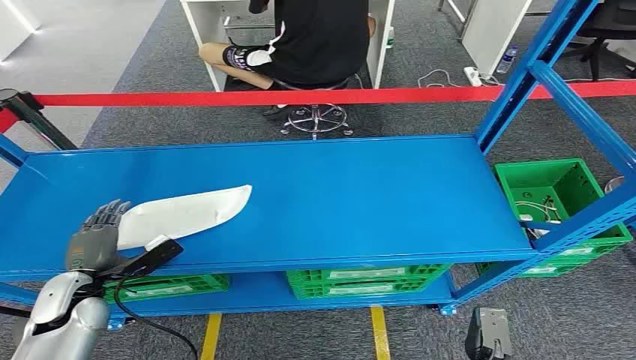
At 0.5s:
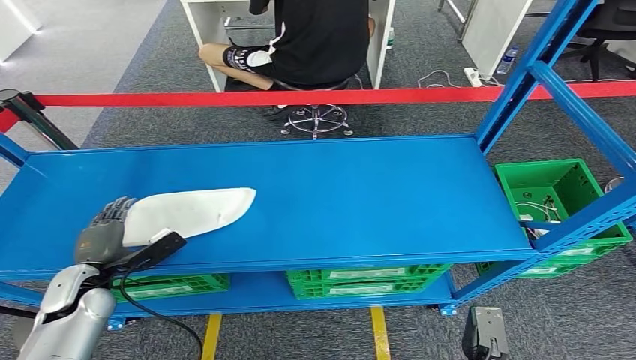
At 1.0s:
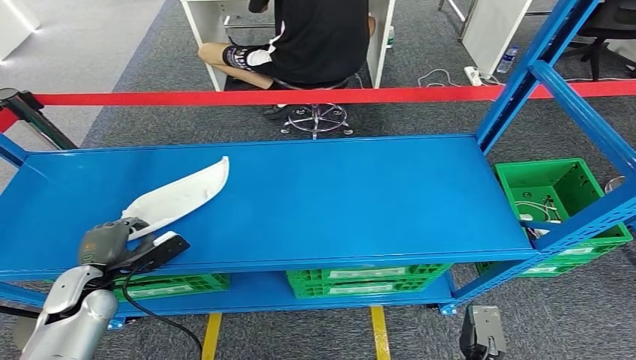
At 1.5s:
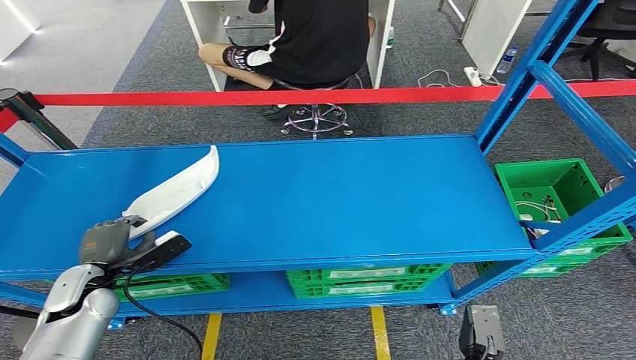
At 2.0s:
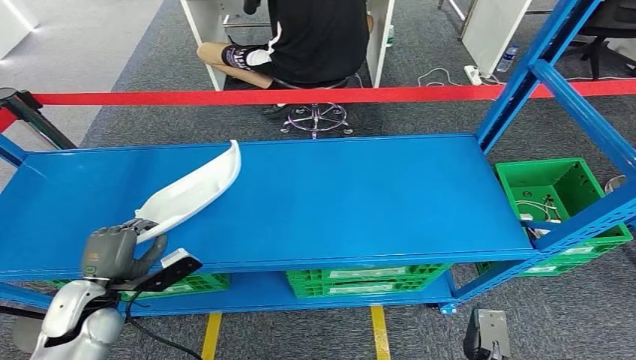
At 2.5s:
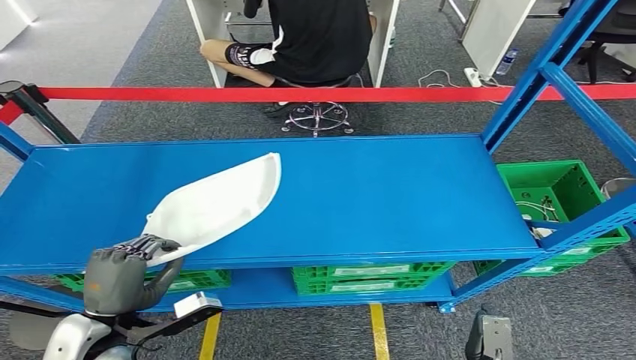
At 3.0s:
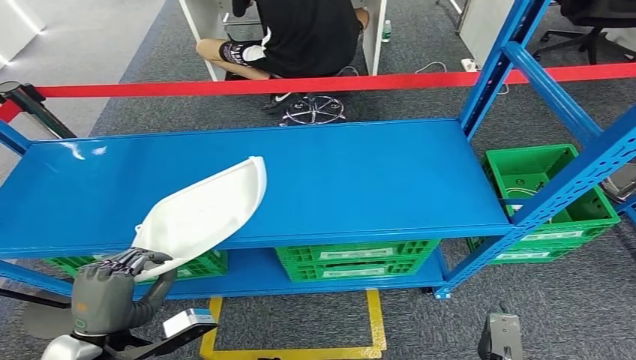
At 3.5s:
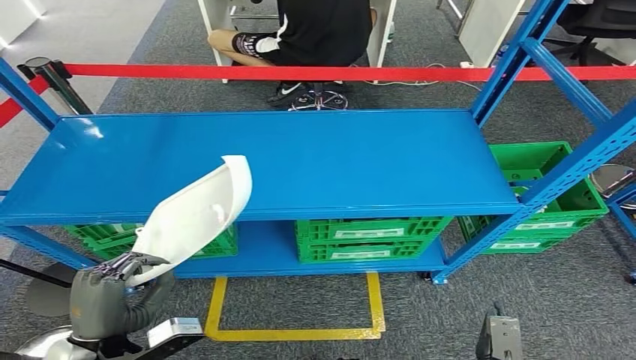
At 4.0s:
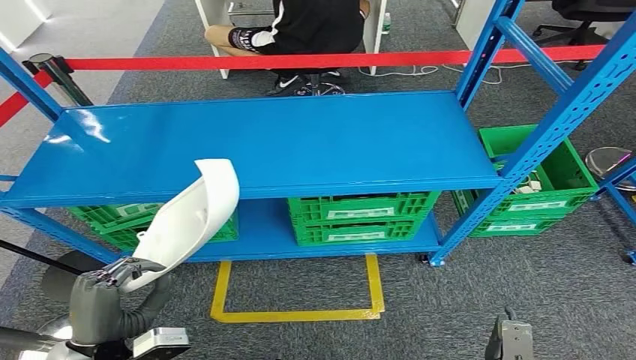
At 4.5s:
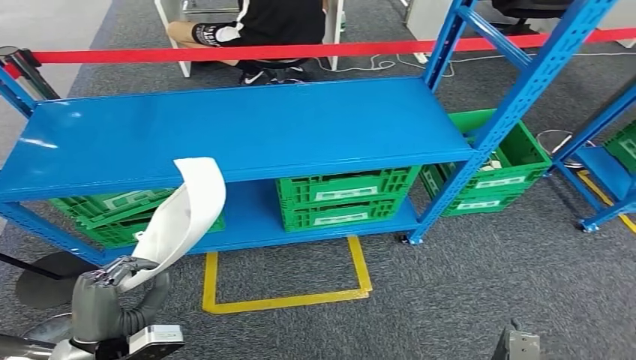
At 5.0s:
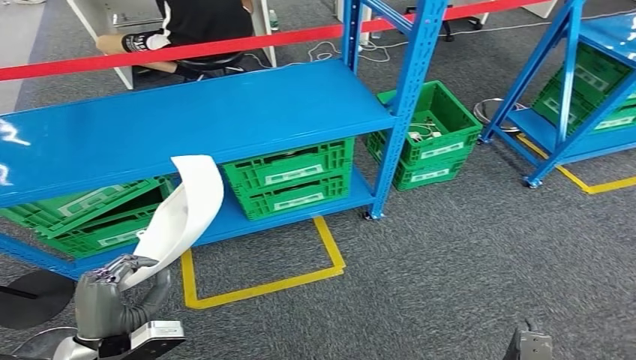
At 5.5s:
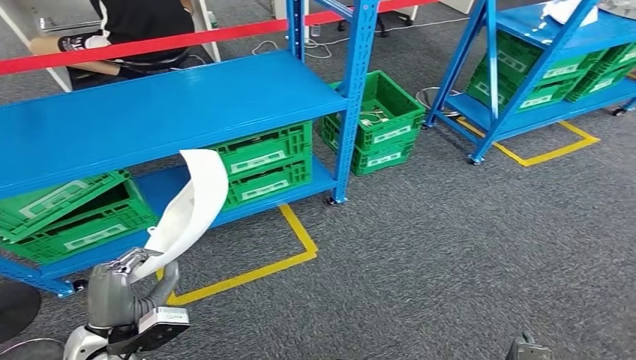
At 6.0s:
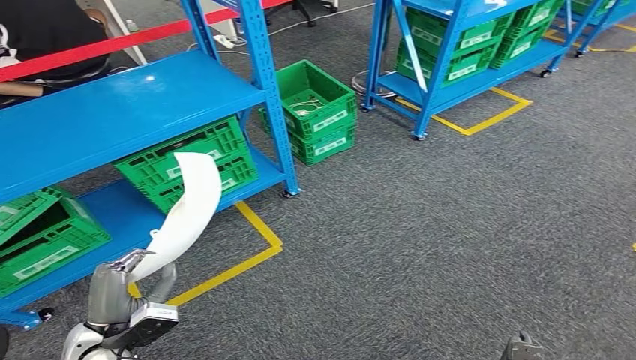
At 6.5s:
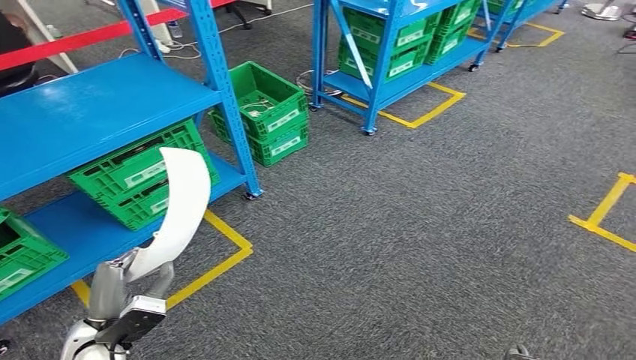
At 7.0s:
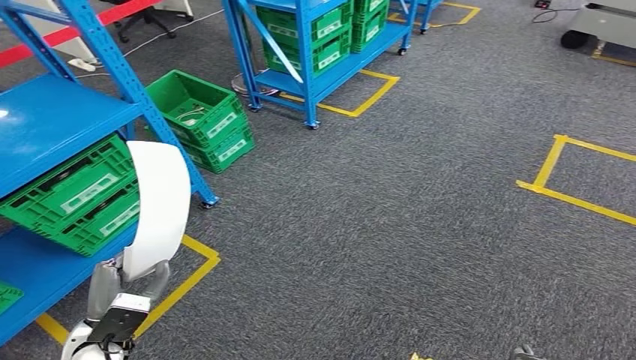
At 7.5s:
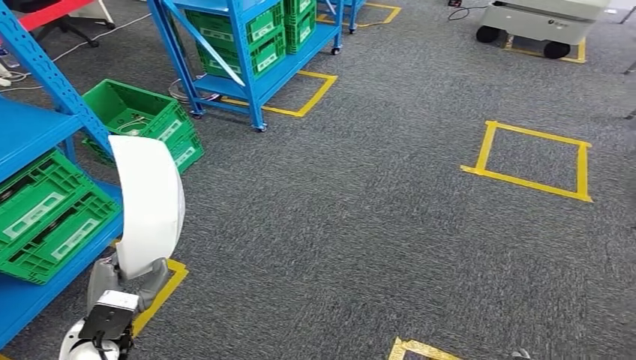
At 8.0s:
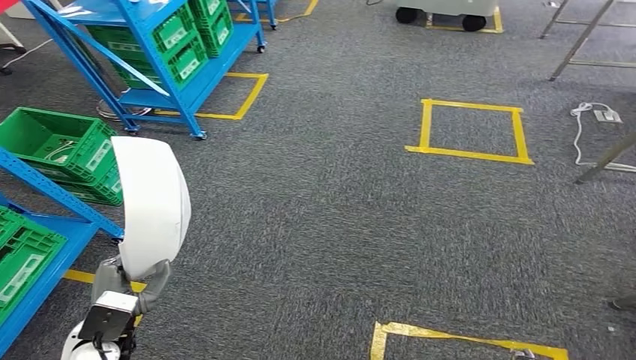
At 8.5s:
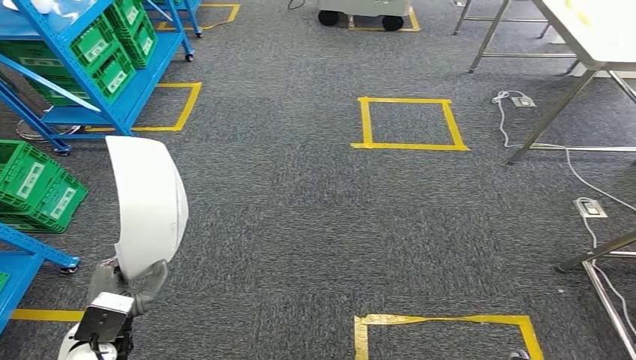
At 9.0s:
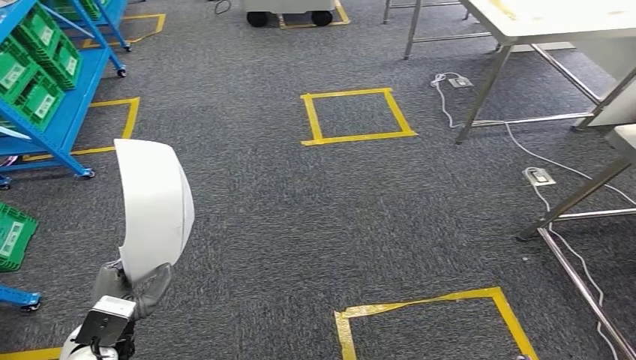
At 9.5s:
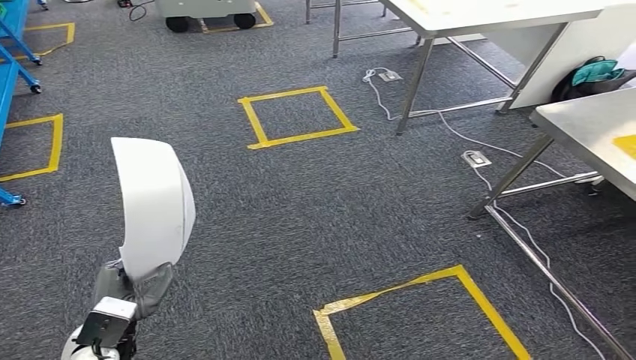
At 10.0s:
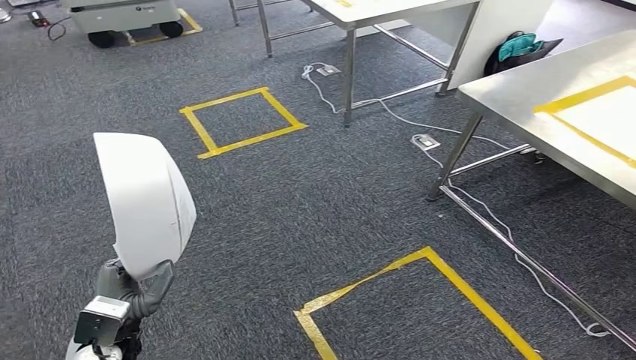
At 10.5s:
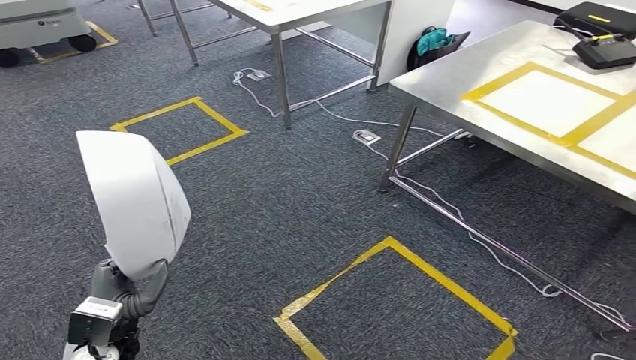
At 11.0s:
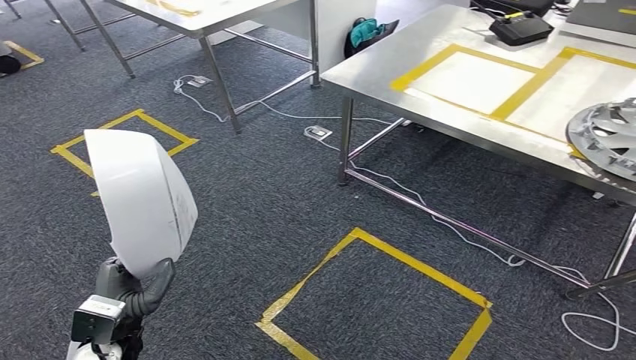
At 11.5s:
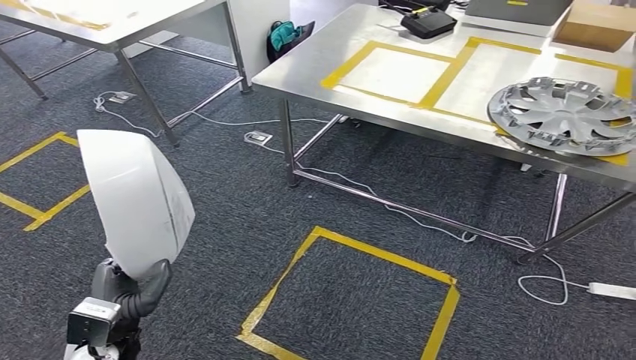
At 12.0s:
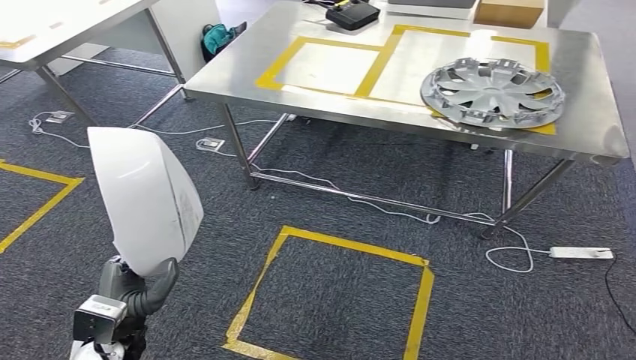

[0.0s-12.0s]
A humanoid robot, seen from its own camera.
Step, 0.0s to 3.5s: Take small components from the rack.

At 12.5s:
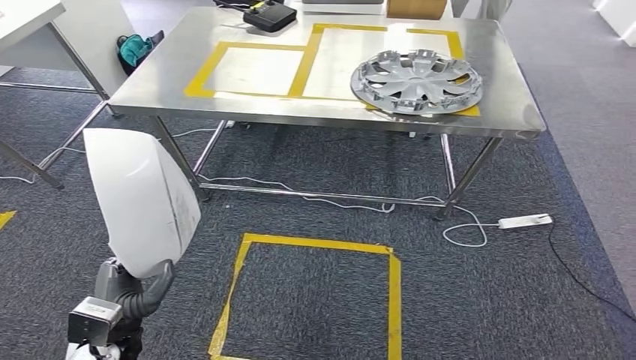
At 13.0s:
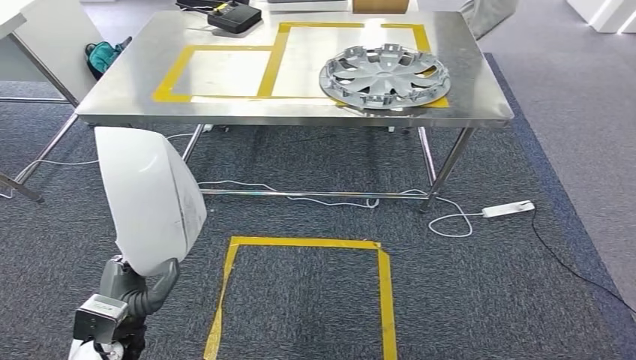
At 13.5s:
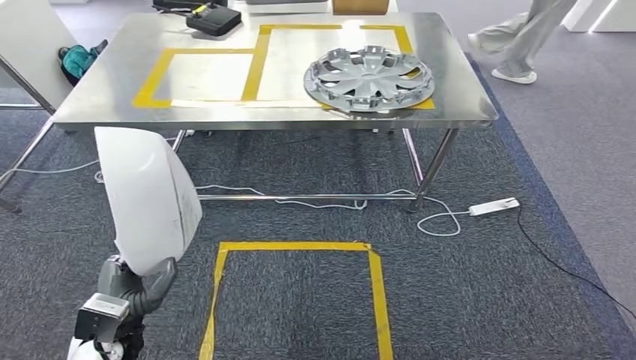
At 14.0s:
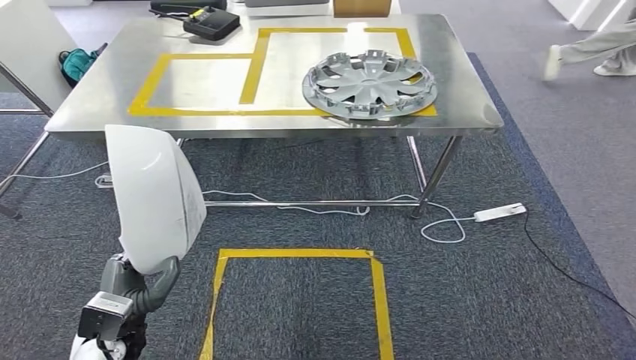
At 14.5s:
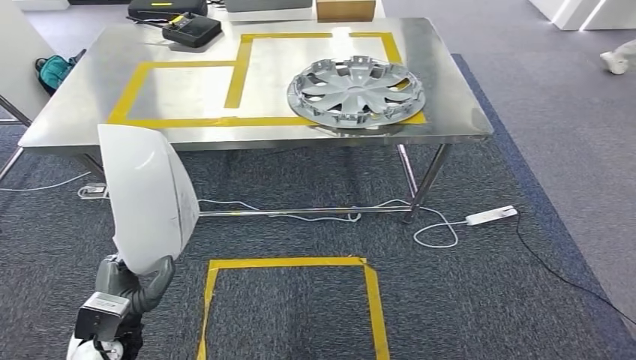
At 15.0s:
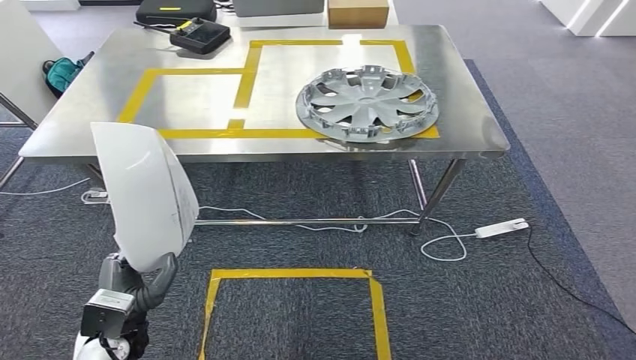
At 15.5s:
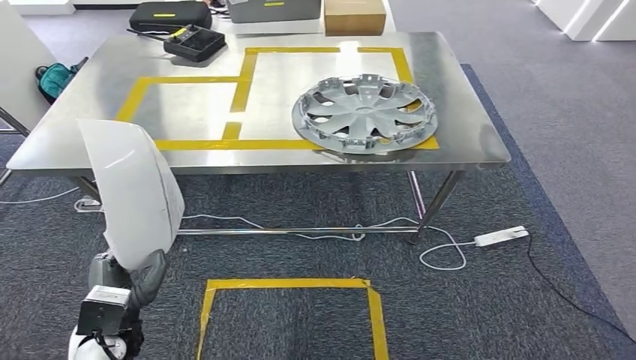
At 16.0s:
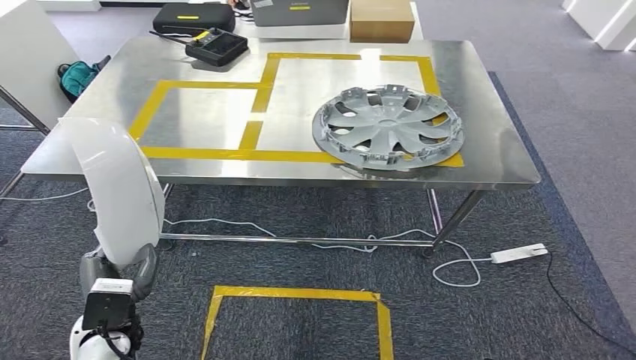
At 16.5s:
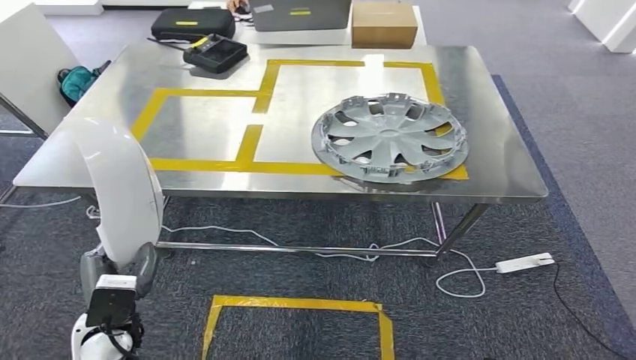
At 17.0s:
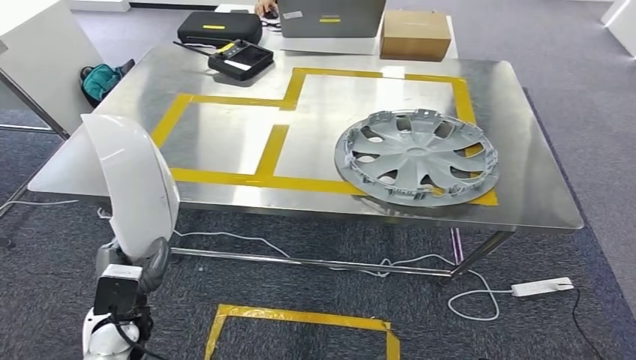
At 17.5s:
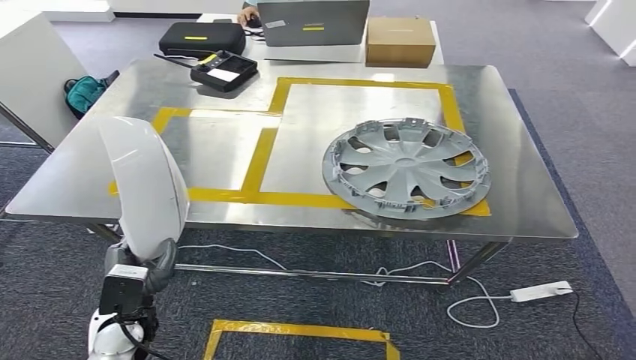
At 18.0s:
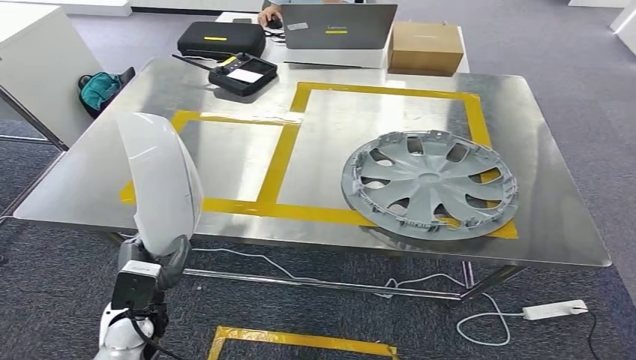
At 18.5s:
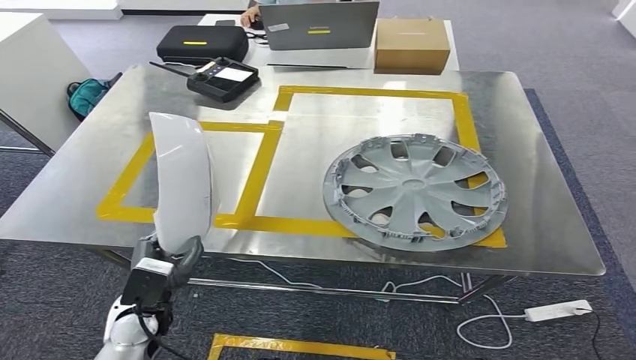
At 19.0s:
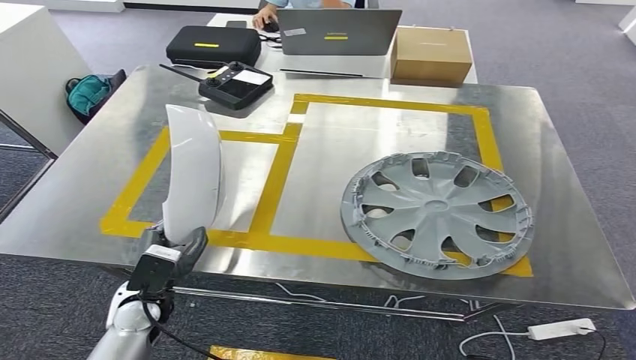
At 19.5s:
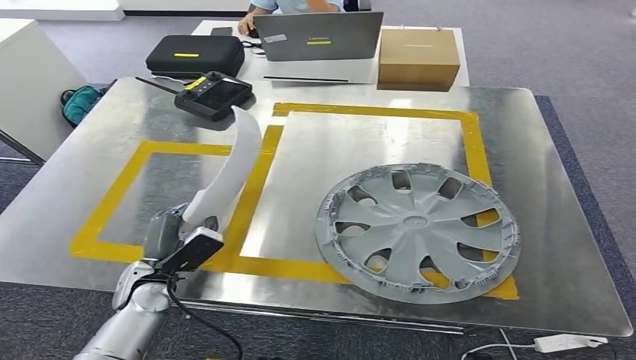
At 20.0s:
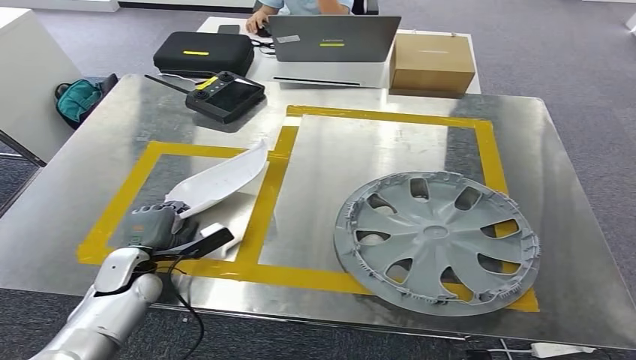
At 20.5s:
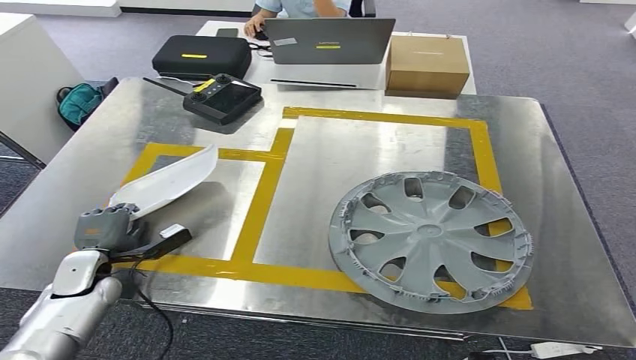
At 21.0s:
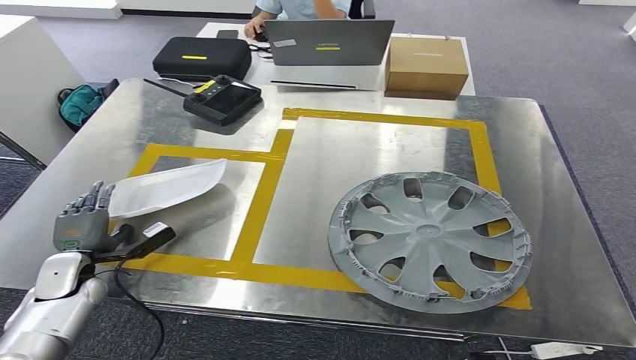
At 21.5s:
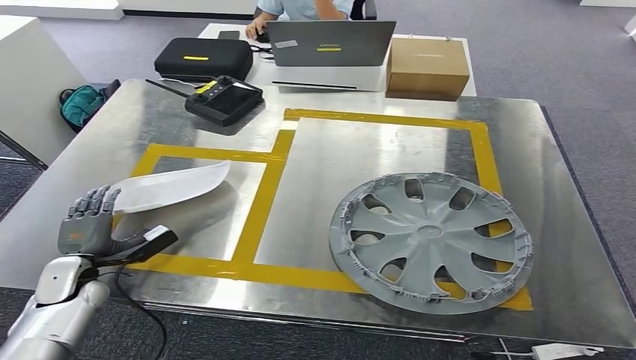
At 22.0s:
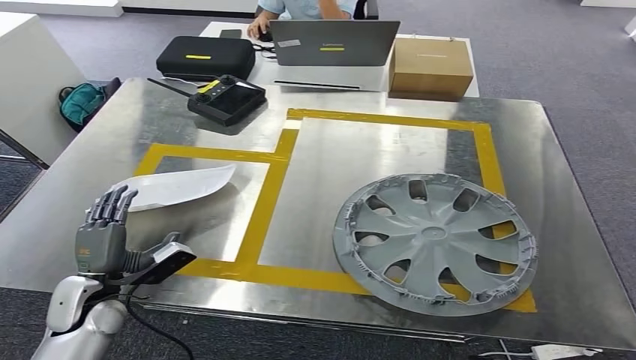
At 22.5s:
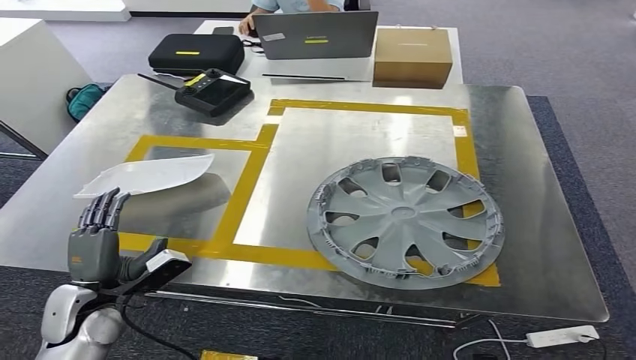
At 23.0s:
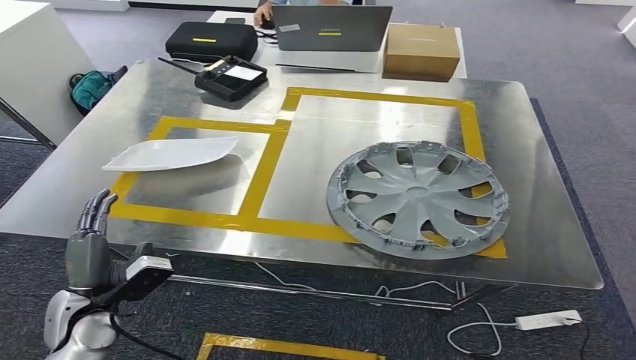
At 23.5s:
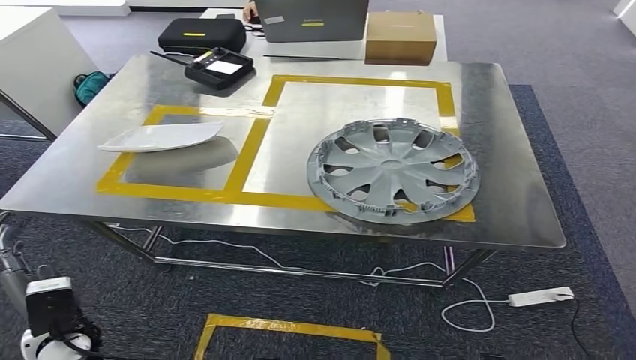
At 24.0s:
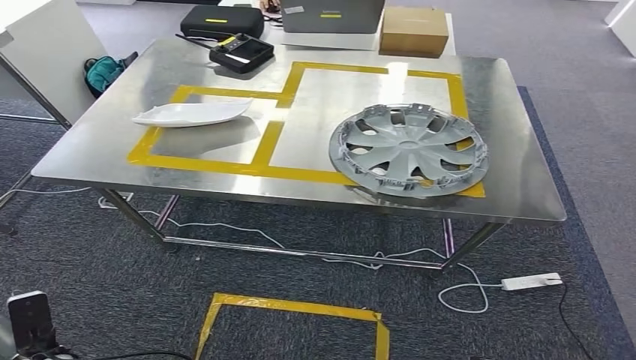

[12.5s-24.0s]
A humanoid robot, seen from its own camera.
Step, 12.5s to 16.0s: Move the small parts to the workbench.
Step, 16.5s to 22.5s: Insert the small parts into the corresponding holes on the workbench.
